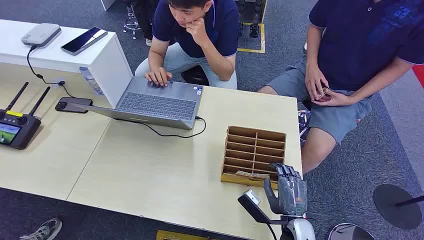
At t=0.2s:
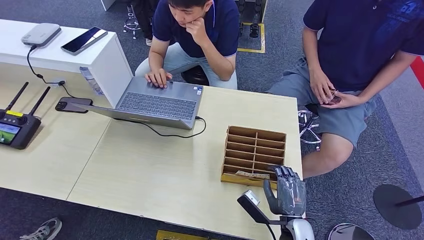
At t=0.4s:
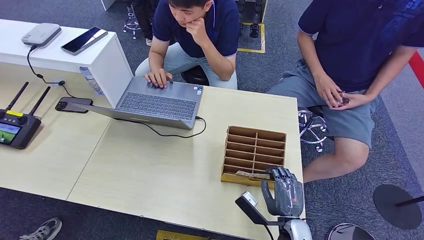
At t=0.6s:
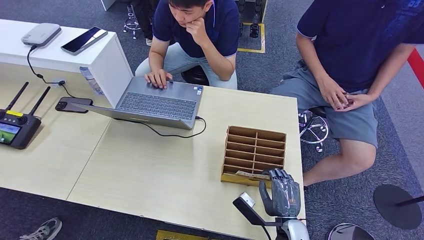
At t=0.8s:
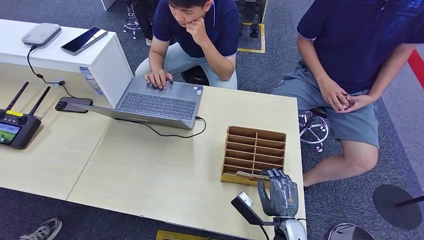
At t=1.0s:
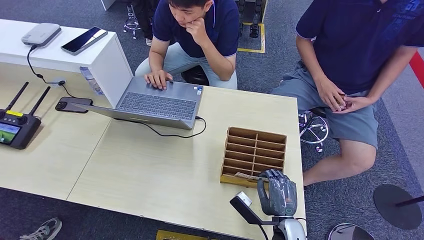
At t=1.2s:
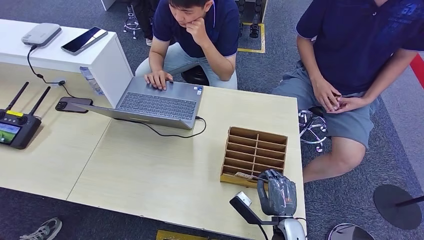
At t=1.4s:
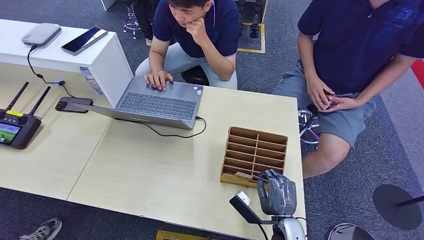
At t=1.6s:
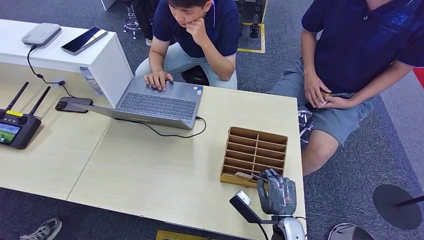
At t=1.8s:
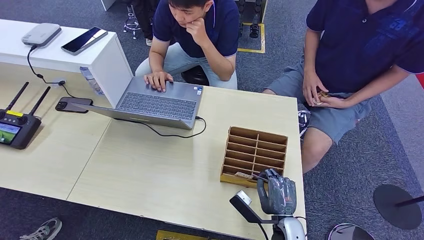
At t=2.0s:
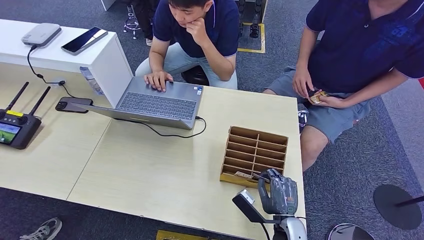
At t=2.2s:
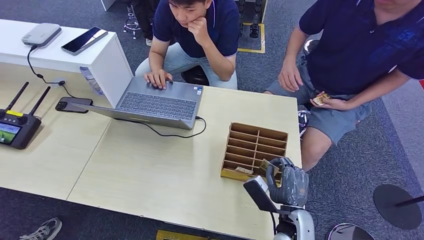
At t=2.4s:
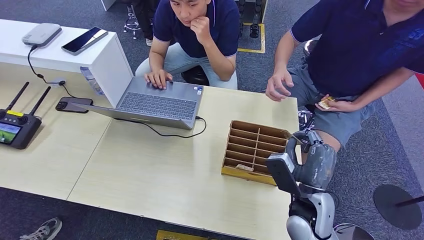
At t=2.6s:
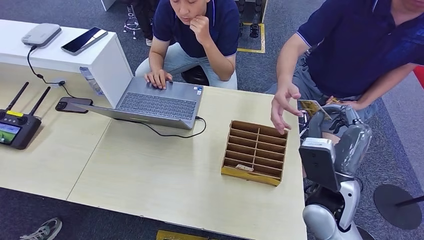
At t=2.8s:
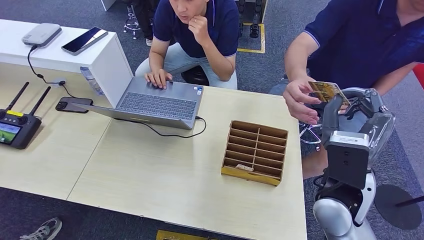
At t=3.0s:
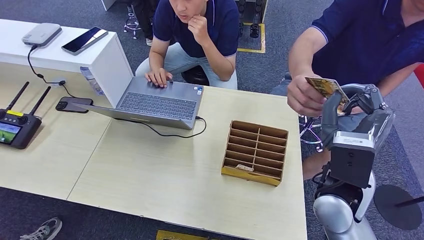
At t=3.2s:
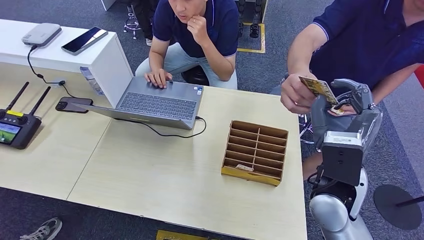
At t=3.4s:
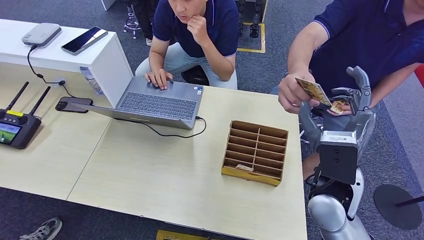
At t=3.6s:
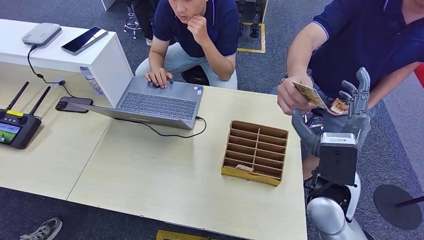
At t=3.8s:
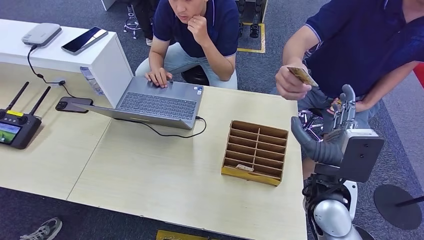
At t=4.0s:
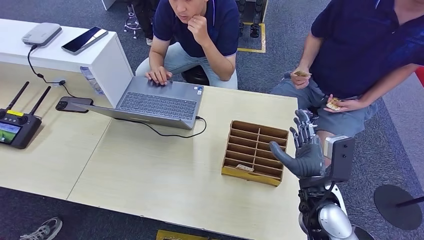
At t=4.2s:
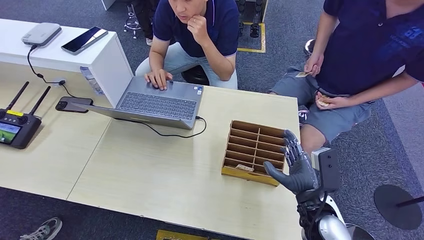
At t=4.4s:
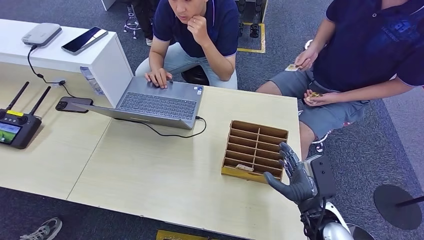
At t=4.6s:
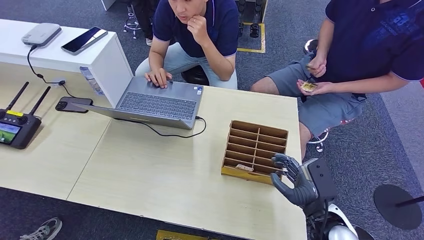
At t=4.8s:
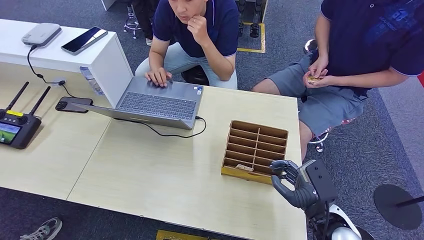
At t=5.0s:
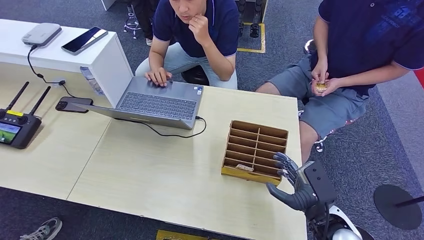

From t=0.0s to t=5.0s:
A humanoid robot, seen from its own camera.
Step, from t=0.0s to t=3.0s: Pick up the key card from the card box.
Step, from t=3.2s to t=5.0s: Hand the key card to the target.
From t=1.6s to t=3.4s: The right hand travels upward by some 20 cm.
From t=3.4s to t=5.0s: The right hand goes approximately 15 cm downward and to the right.

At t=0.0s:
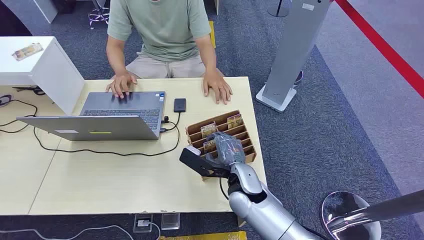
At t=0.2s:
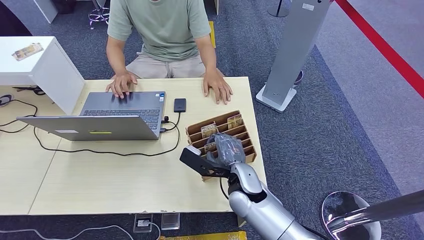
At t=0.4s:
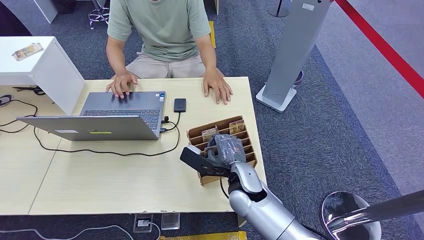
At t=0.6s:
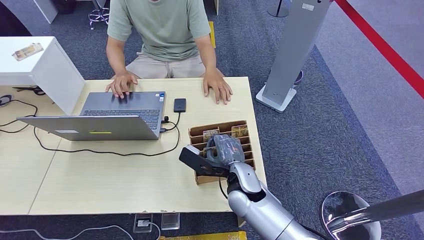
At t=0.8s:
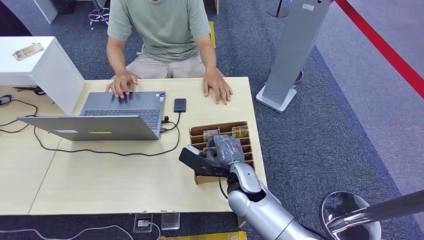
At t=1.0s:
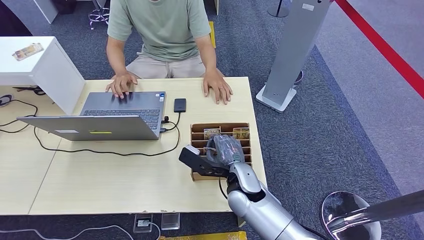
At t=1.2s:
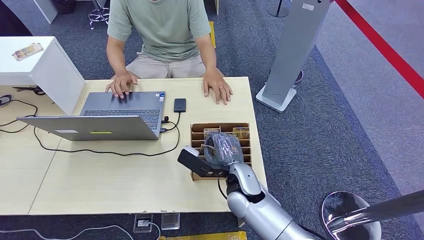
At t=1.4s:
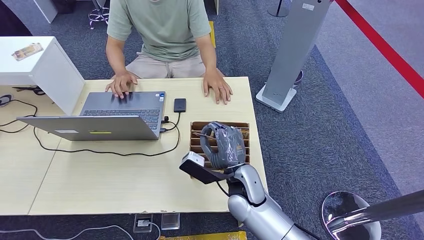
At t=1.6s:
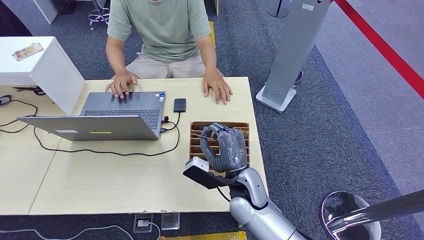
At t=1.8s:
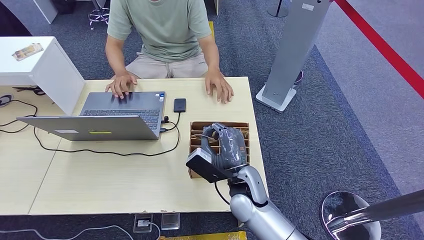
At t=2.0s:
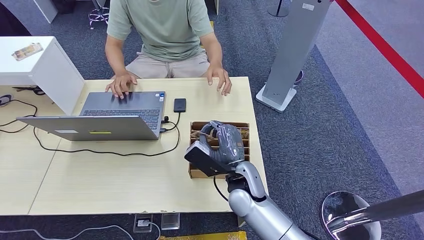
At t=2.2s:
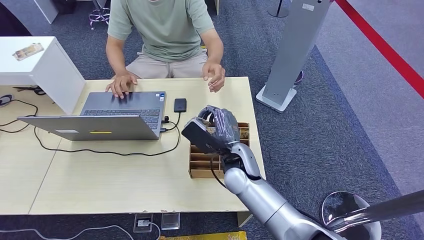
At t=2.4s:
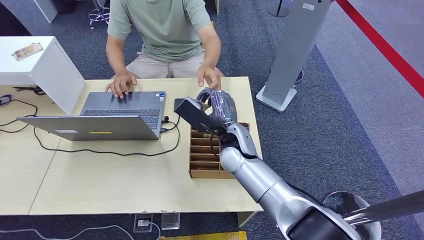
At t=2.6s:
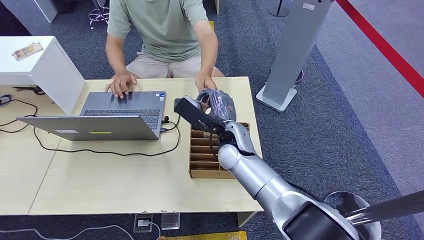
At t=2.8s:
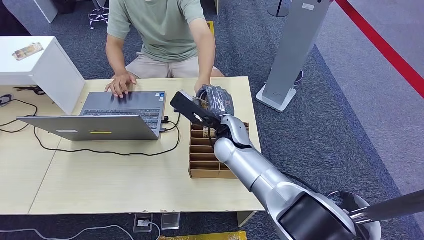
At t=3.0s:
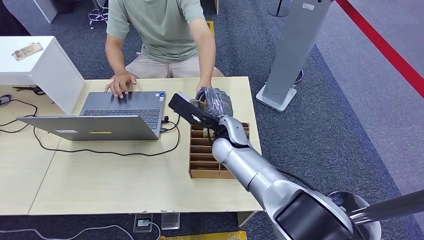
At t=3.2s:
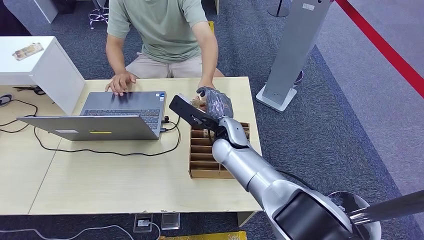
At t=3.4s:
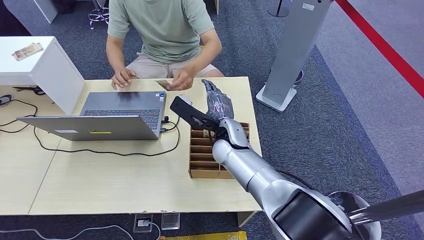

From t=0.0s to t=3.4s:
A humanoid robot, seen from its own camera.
Step, from t=0.0s to t=1.4s: Pick up the key card from the card box.
Step, from t=2.2s to t=3.4s: Hand the key card to the target.
From t=1.6s to t=3.4s: The right hand shifts some 15 cm forward and upward.
